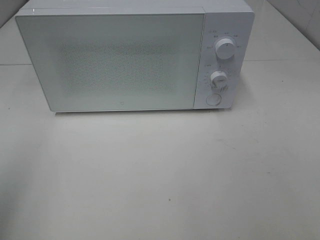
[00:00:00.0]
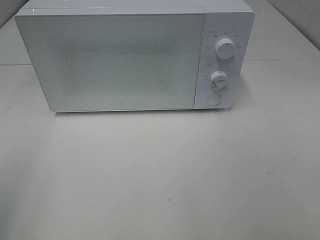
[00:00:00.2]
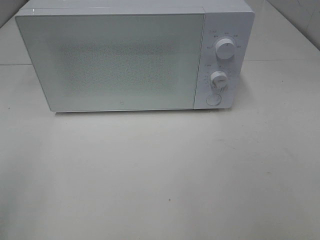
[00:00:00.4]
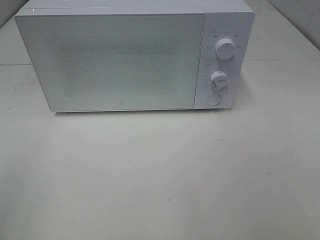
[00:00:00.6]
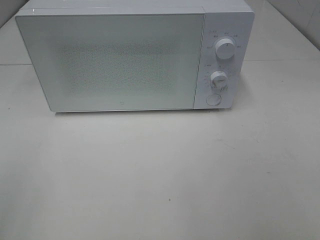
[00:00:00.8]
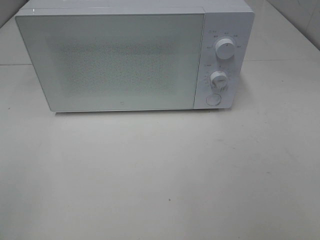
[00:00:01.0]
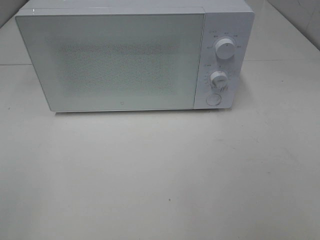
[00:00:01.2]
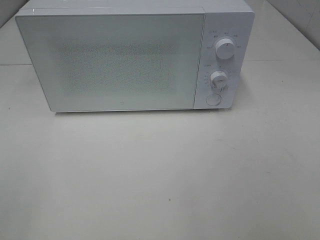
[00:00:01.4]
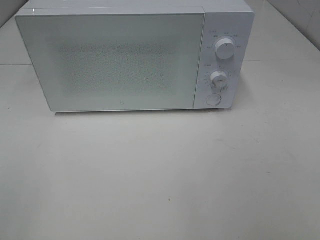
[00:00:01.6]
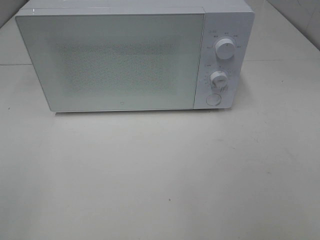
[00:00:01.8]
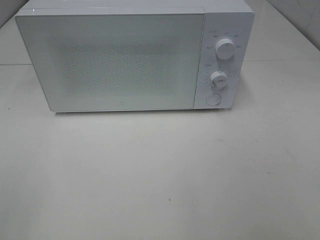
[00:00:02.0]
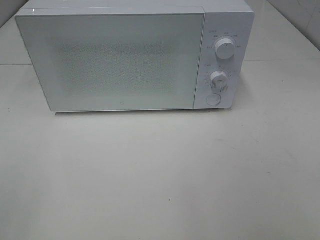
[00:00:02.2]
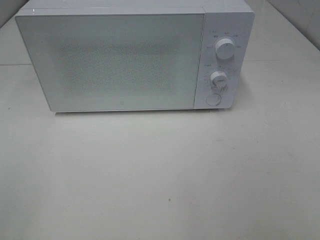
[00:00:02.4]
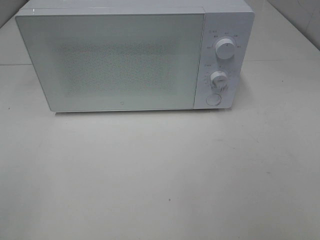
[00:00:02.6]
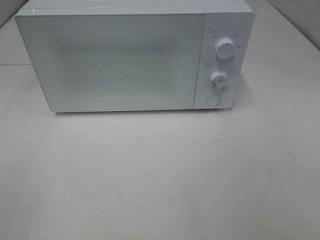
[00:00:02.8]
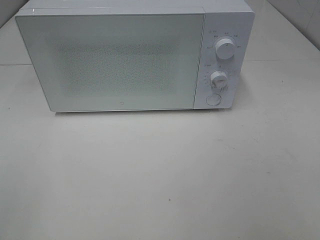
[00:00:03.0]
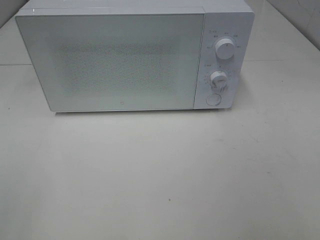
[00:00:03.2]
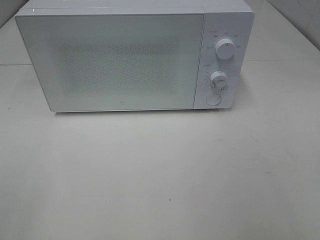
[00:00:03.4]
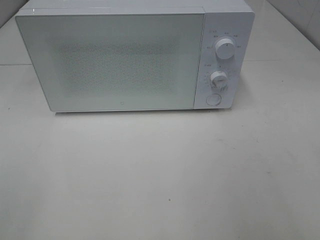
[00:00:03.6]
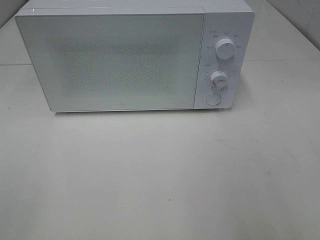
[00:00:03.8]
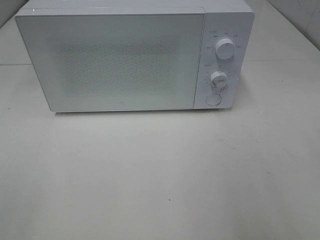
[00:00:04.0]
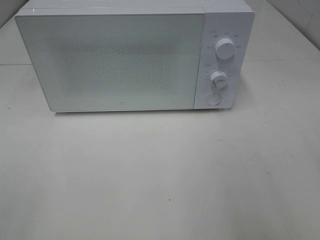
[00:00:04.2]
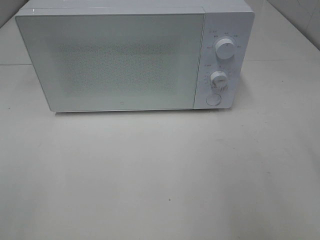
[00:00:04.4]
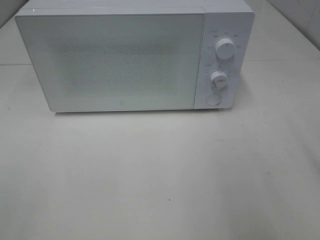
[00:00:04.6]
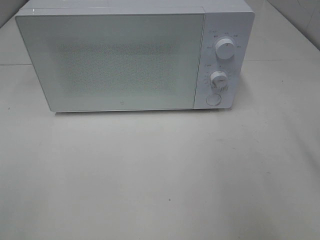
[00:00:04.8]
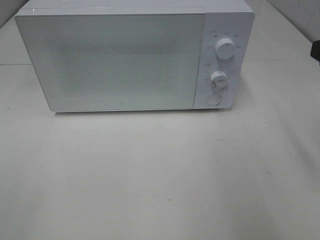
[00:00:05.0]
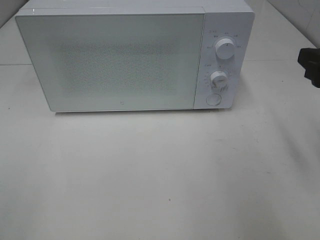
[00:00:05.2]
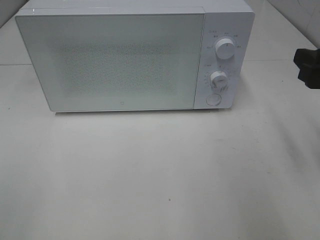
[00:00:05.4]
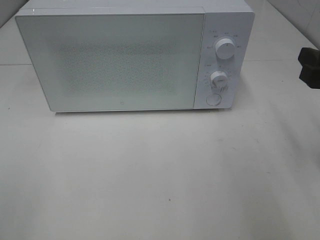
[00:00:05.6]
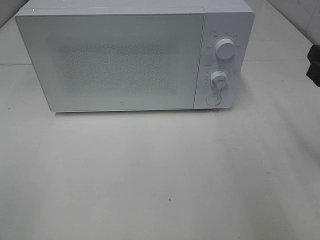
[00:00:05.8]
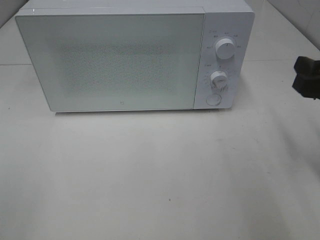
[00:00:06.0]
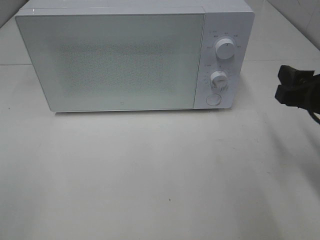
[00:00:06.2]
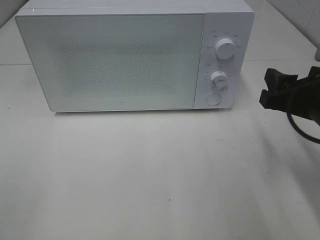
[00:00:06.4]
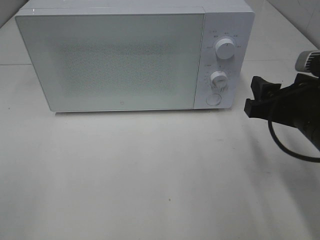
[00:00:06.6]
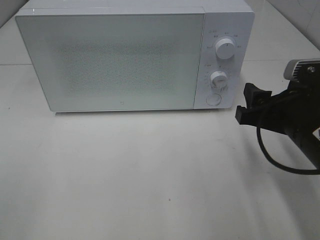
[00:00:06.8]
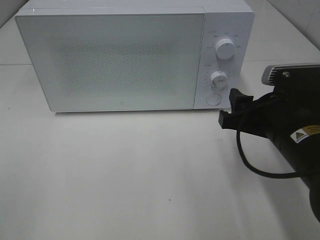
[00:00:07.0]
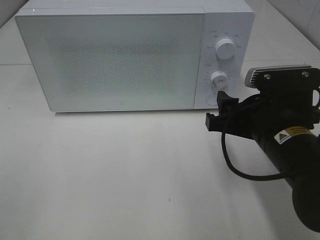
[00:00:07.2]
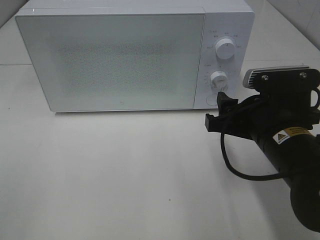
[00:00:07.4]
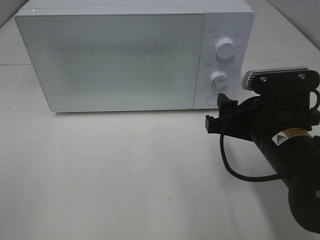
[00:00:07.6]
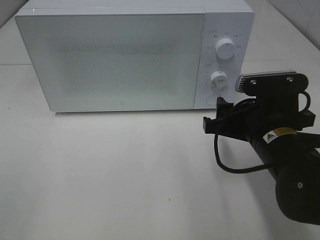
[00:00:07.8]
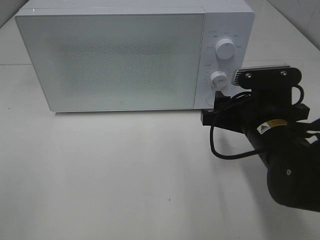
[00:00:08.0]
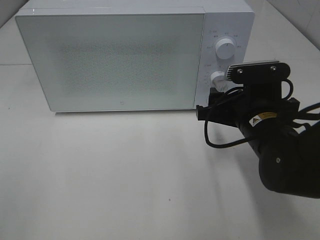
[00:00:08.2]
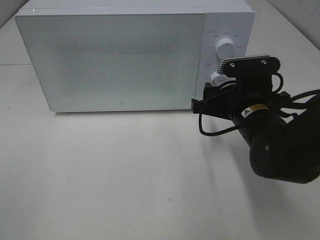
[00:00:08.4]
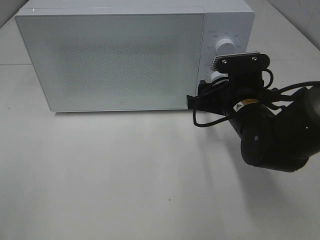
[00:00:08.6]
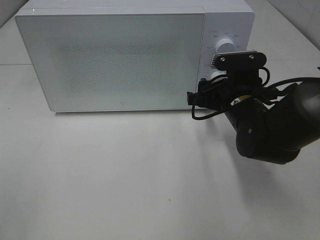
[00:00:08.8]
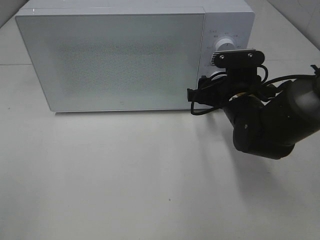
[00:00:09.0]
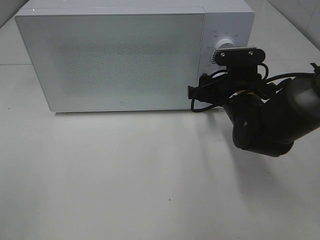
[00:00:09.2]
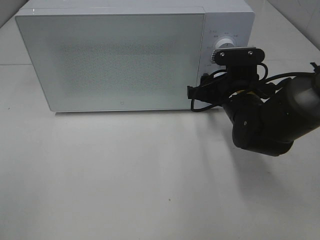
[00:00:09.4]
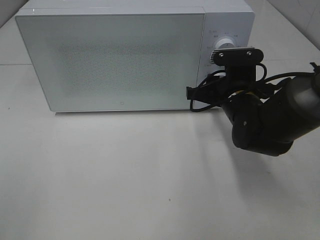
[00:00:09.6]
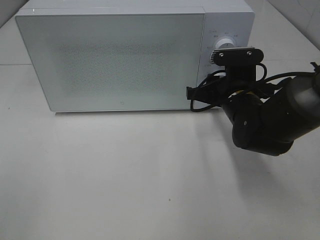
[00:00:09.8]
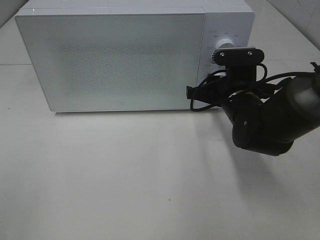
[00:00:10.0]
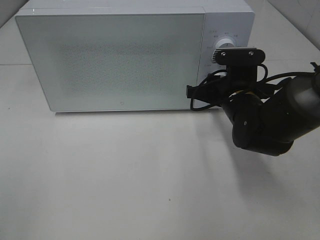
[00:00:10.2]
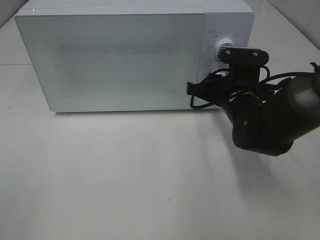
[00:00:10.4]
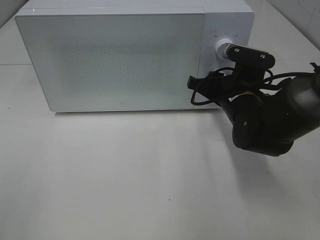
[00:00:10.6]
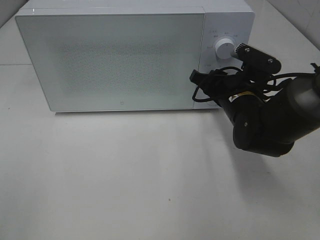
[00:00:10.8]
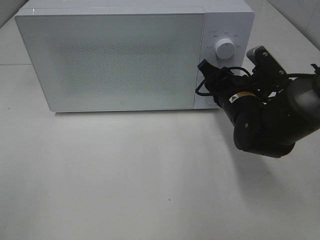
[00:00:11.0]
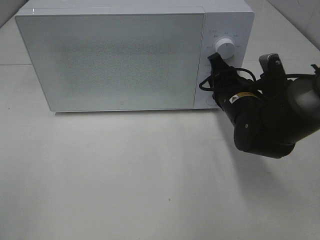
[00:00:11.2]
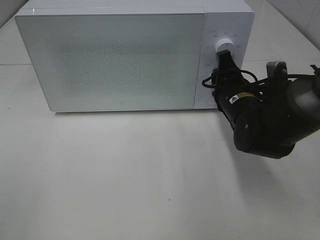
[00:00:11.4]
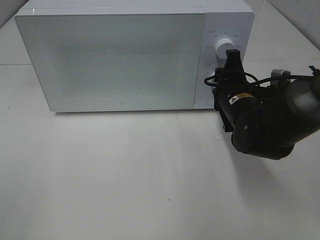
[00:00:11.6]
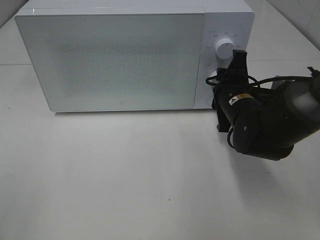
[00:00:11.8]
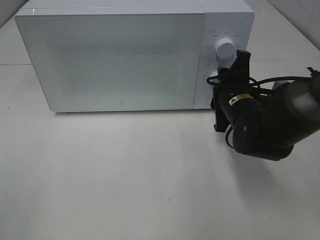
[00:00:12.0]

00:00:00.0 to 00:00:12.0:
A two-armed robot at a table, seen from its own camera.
Task of the whole recording: Heat Sandwich.
00:00:01.6 to 00:00:03.0: Neither gripper changes place.
00:00:04.4 to 00:00:06.0: The right gripper goes roughly 10 cm downward and forward.
00:00:06.0 to 00:00:07.6: The right gripper moves to the left and downward, roughly 10 cm.
00:00:07.6 to 00:00:09.0: The right gripper travels forward by approximately 10 cm.
00:00:09.0 to 00:00:10.4: The right gripper closes.

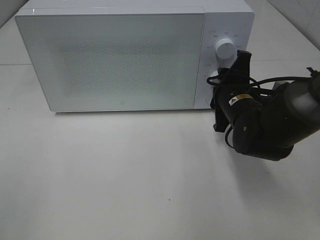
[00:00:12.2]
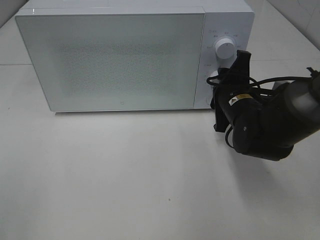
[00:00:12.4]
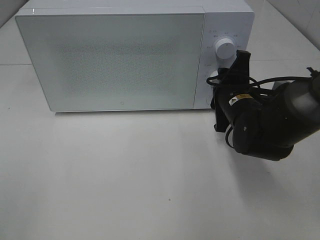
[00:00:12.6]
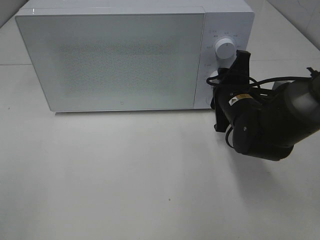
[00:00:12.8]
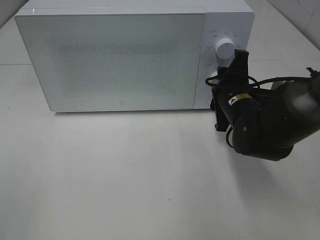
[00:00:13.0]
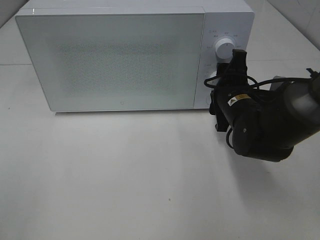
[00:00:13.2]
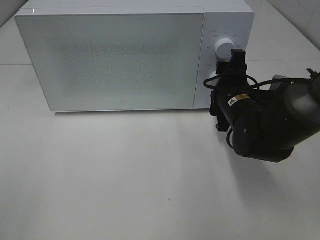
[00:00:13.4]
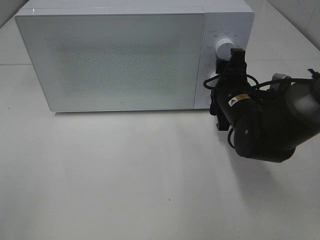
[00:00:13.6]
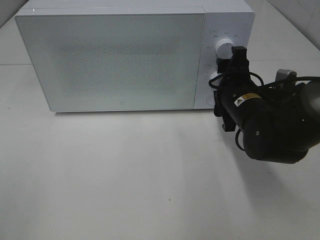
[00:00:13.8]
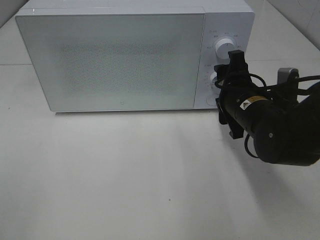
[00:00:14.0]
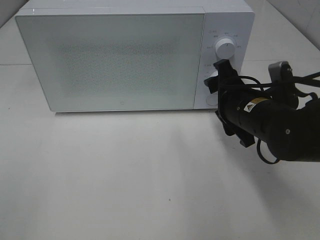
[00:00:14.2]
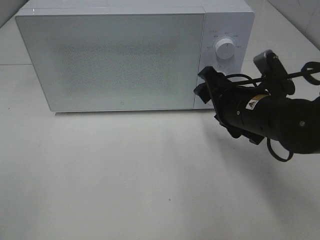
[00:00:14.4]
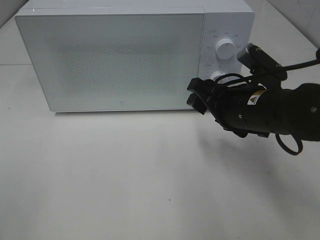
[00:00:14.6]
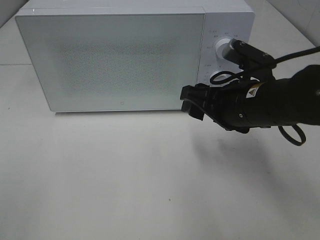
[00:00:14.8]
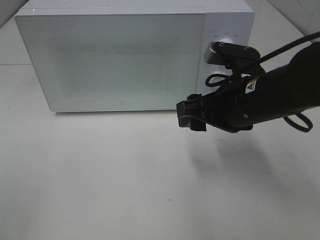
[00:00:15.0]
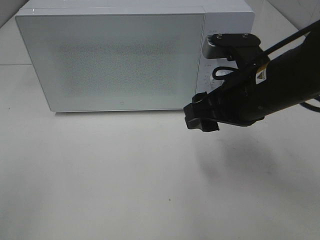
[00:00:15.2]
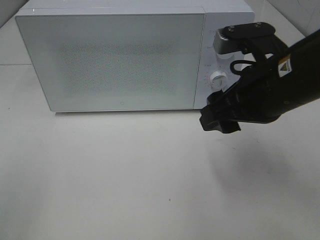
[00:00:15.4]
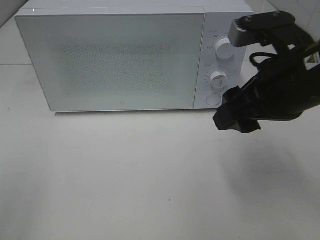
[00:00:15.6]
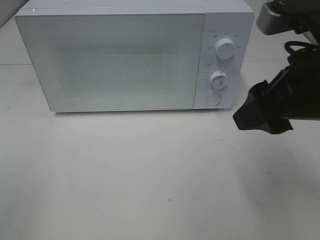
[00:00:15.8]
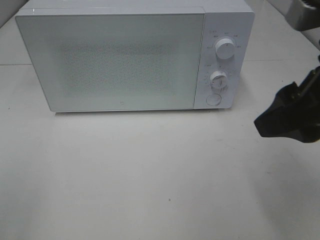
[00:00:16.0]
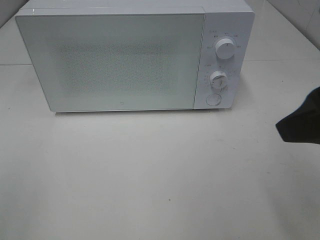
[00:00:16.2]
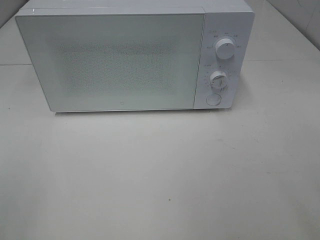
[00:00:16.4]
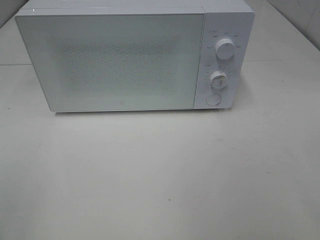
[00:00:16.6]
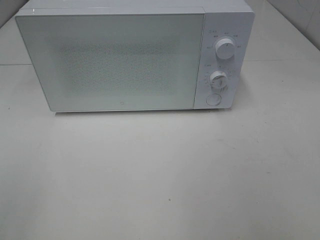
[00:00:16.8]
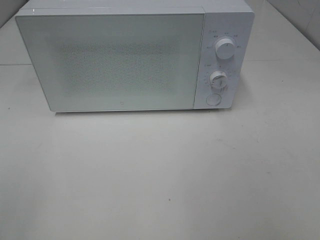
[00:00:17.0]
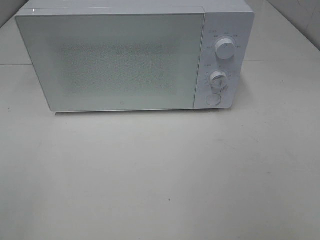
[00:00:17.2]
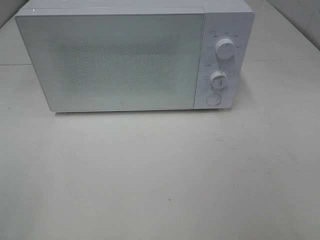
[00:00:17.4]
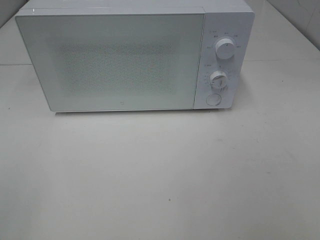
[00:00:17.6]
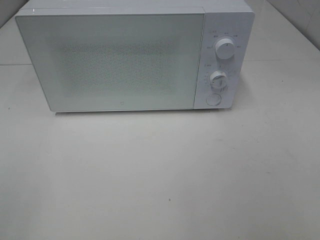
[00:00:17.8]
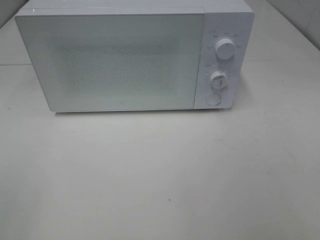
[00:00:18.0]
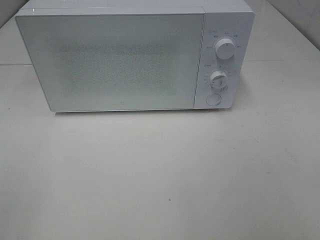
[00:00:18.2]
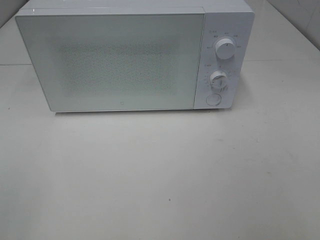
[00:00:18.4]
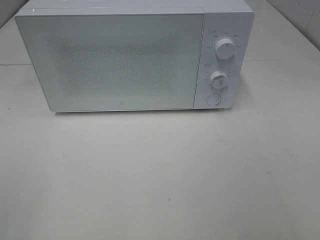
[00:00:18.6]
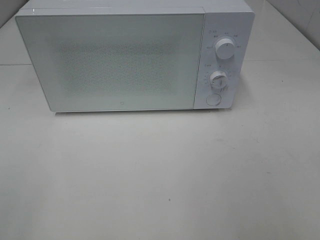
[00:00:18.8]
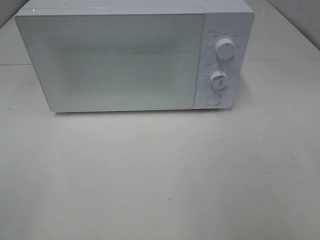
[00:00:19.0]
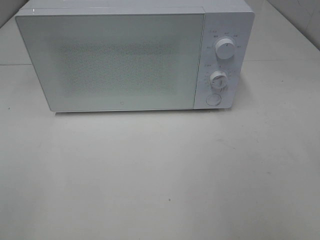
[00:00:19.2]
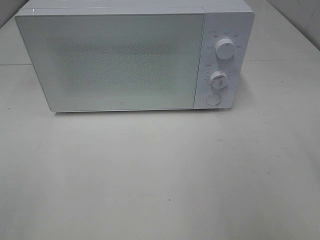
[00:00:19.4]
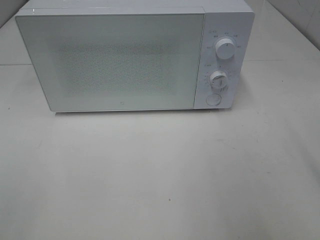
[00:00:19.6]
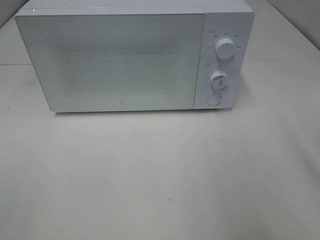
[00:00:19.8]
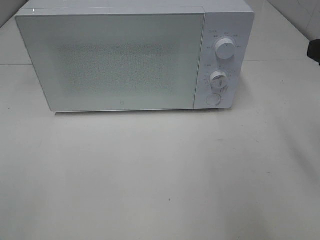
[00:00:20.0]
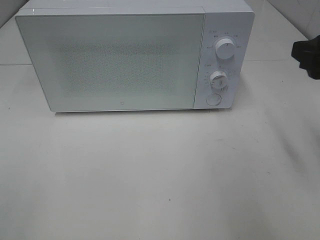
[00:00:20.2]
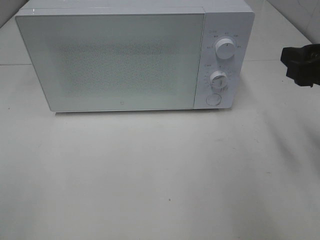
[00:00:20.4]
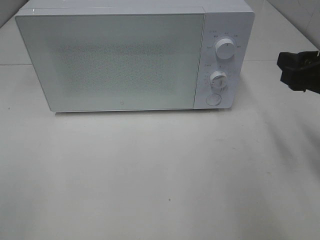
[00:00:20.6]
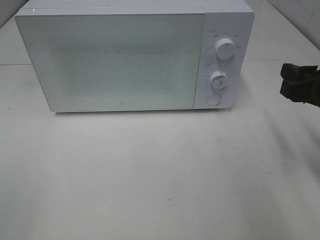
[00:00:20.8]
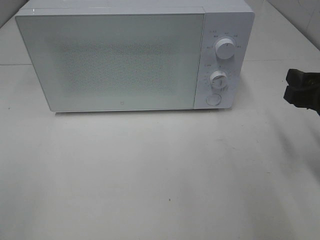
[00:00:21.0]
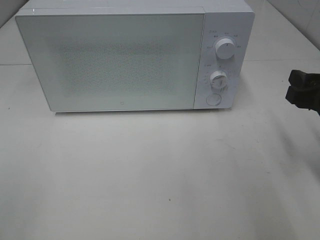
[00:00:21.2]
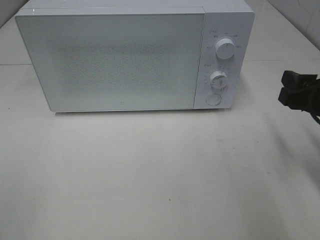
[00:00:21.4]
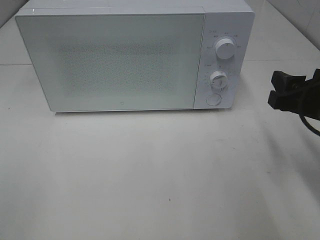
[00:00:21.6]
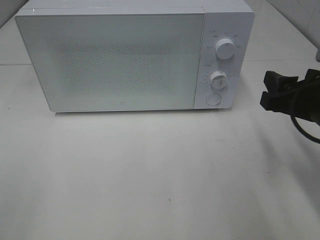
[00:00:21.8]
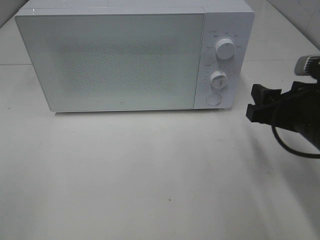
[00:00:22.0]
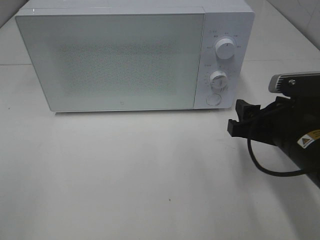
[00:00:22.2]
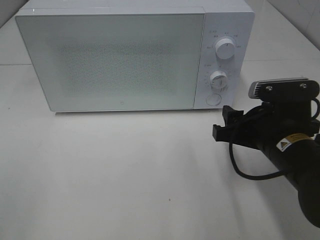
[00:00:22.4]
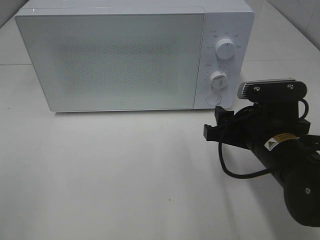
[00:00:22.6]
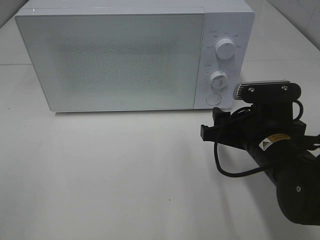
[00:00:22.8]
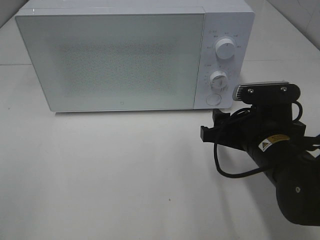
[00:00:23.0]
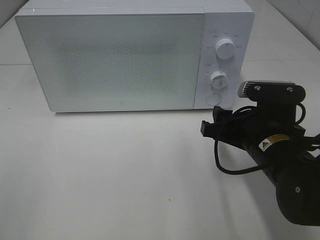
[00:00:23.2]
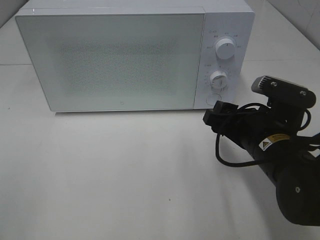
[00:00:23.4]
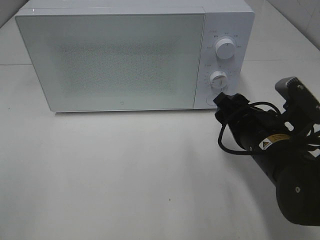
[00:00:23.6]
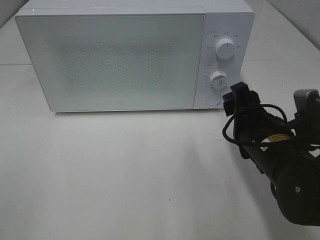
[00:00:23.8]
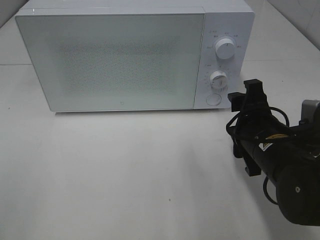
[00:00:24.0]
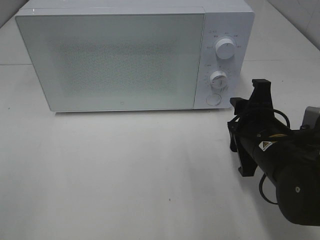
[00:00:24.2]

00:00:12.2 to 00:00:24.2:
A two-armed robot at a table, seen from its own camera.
Task of the whole recording: Heat Sandwich.
00:00:12.2 to 00:00:13.8: There are only small adjustments of the grippers.
00:00:13.8 to 00:00:15.2: The right gripper moves upward and backward, approximately 10 cm.
00:00:15.2 to 00:00:16.6: The right gripper shifts approximately 25 cm backward, upward and to the right.
00:00:19.8 to 00:00:21.2: The right gripper heads downward and forward, covering some 10 cm.
00:00:21.2 to 00:00:22.6: The right gripper travels to the left and downward by some 10 cm.
